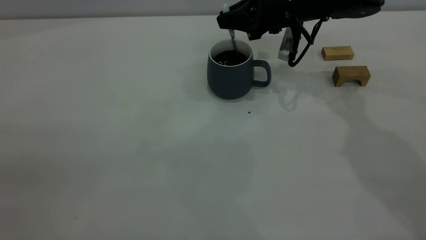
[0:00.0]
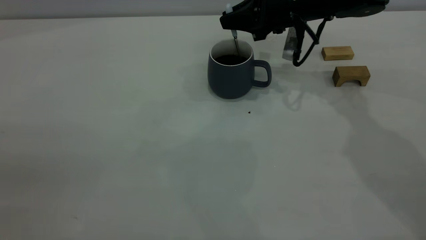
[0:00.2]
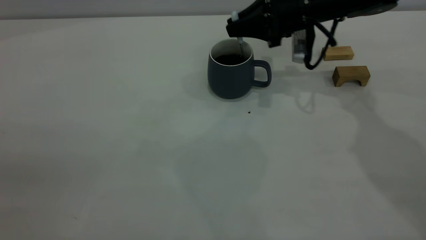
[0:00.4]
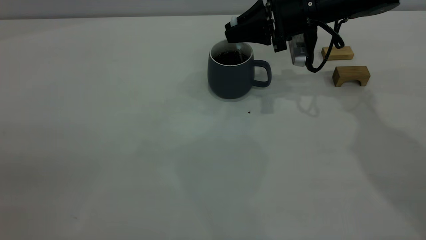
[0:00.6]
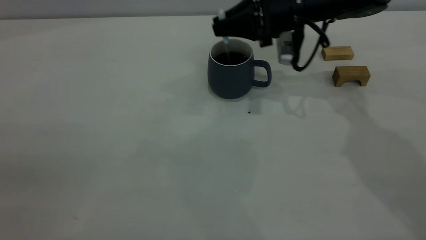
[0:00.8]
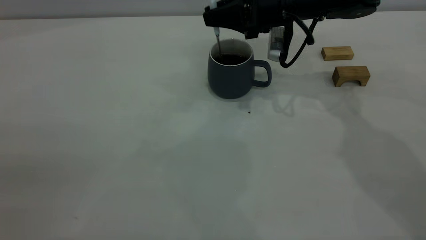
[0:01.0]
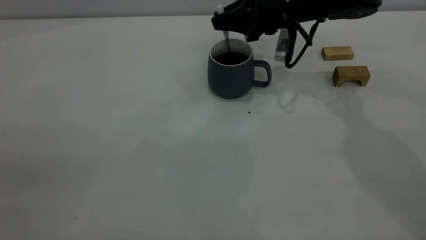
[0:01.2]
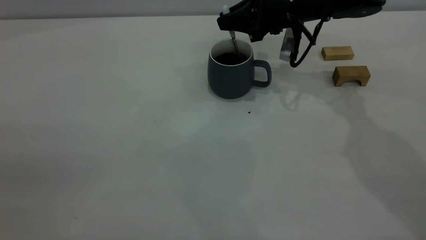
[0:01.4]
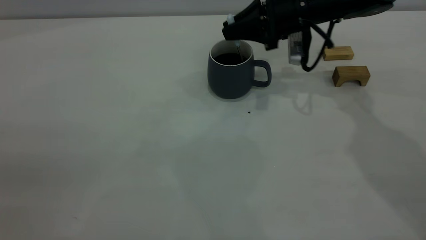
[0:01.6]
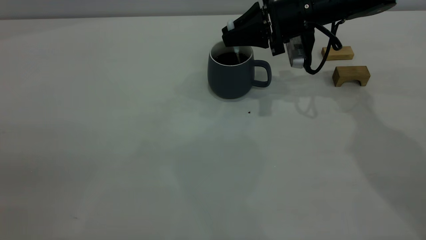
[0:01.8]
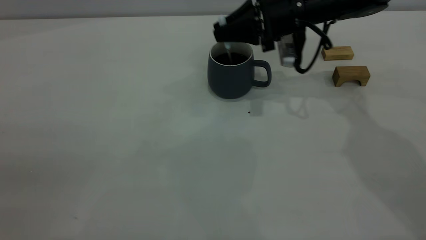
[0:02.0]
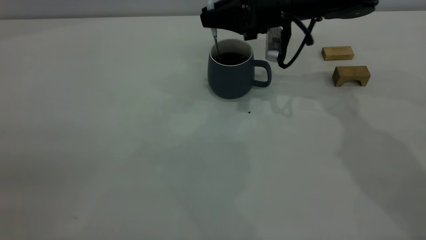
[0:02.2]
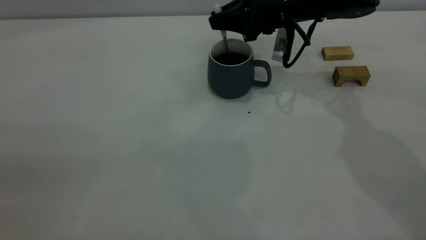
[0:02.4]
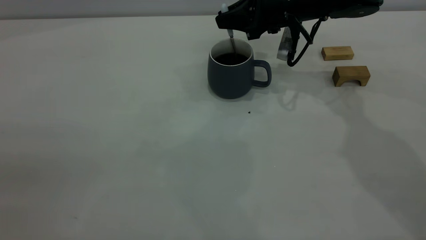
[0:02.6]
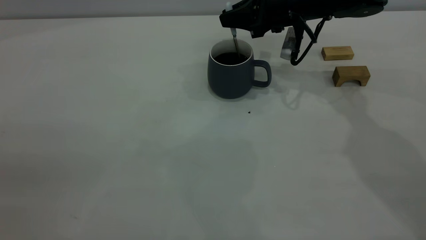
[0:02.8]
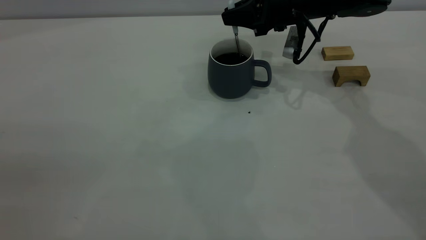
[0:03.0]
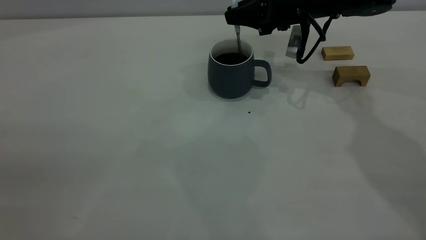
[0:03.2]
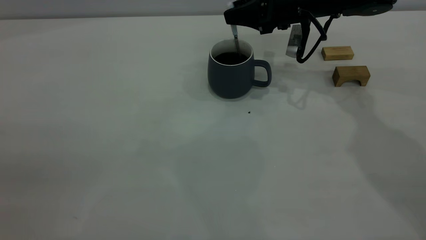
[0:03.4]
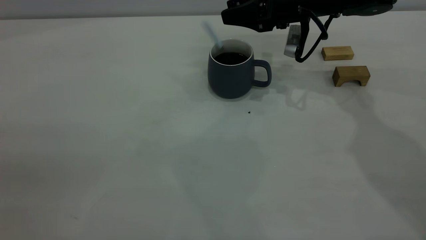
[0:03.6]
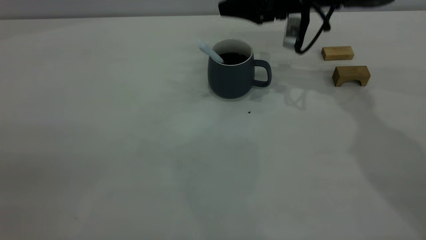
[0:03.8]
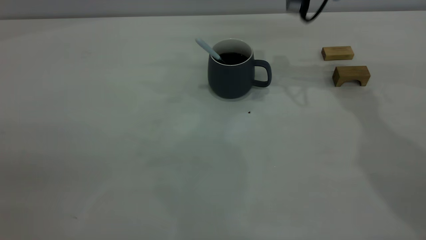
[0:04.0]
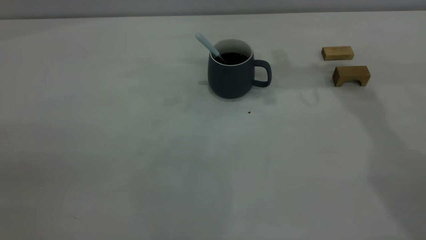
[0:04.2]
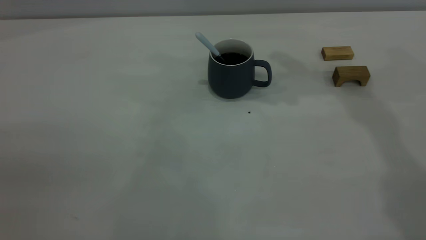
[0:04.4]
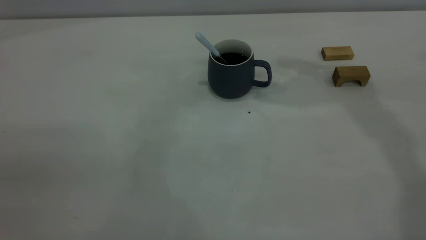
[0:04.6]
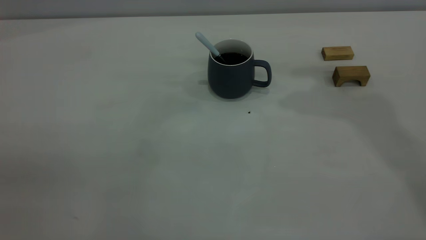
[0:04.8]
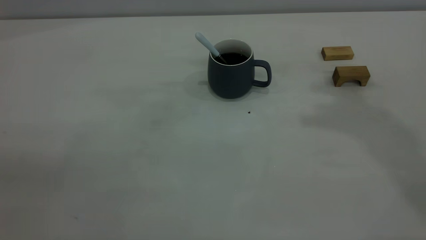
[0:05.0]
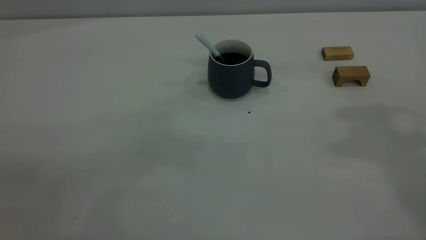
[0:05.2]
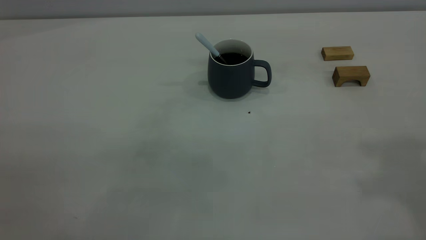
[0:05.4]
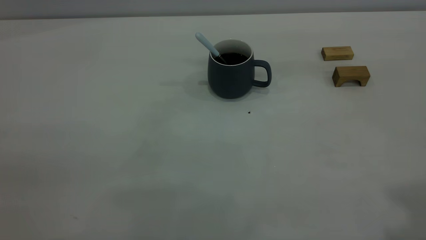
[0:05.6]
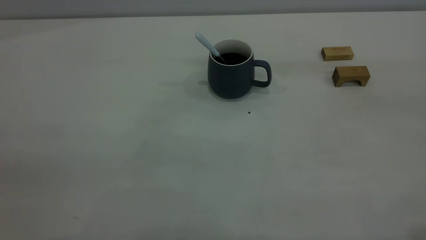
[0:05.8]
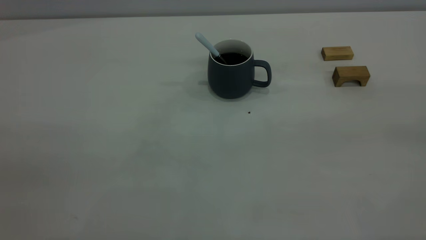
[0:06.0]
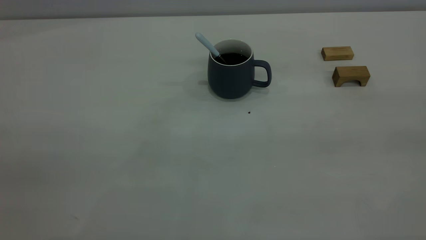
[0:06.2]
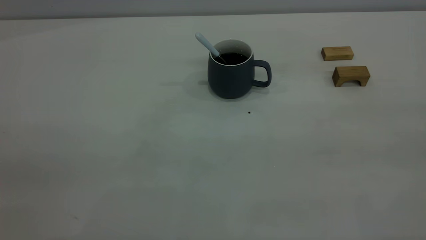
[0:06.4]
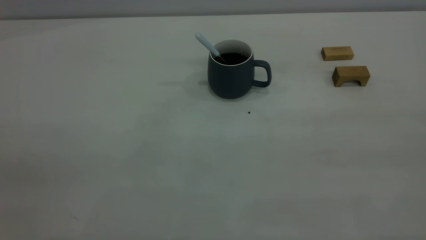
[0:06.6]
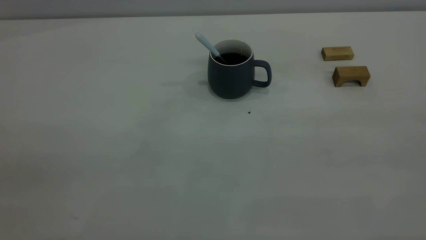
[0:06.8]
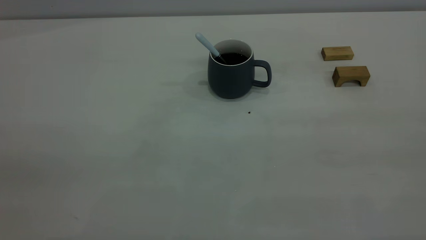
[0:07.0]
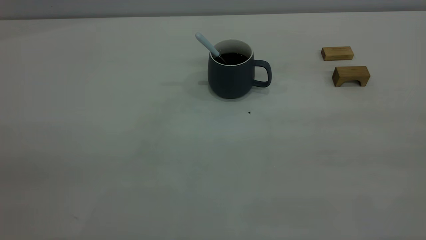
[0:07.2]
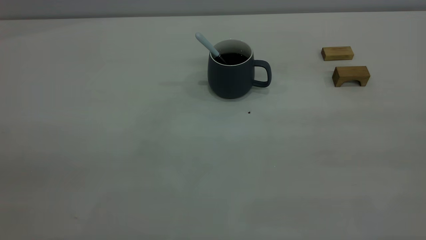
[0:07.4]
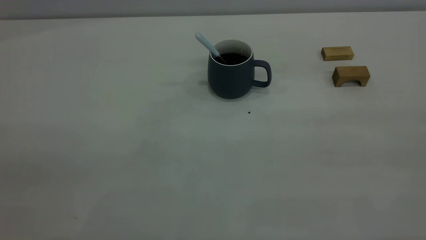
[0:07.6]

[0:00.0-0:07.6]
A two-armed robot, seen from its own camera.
Step, 0:00.0 to 0:03.6: Stir the coffee in the cup.
0:00.0 to 0:03.0: The grippers stay close to where they were, moving slightly.
0:03.0 to 0:04.6: The right gripper moves upward, about 25 cm, and opens.

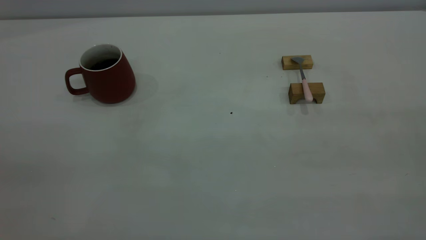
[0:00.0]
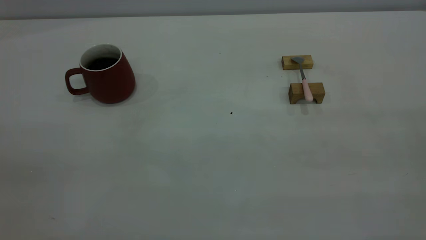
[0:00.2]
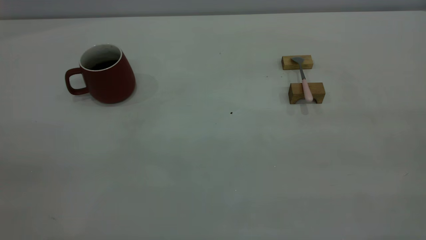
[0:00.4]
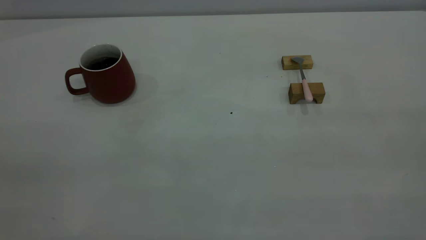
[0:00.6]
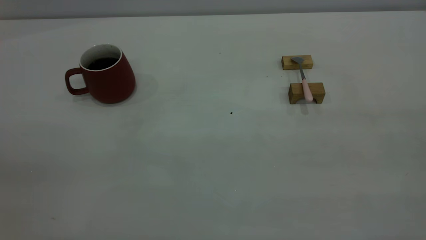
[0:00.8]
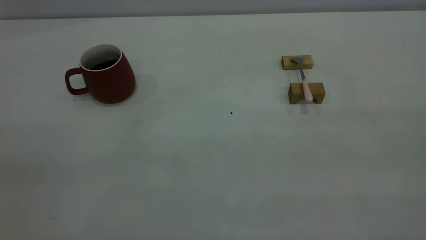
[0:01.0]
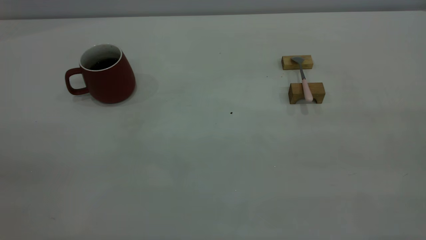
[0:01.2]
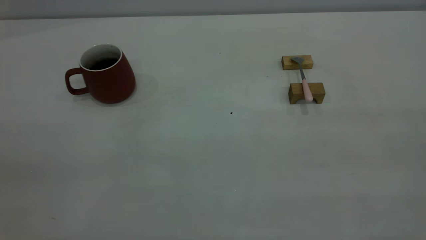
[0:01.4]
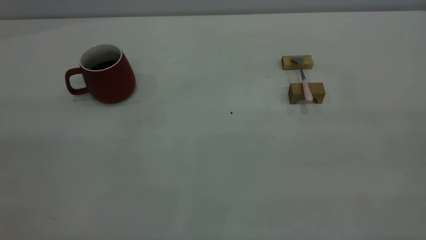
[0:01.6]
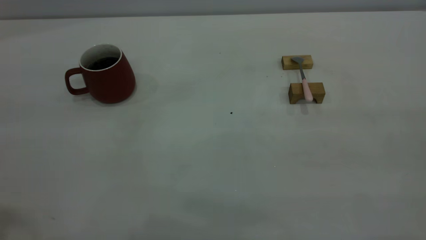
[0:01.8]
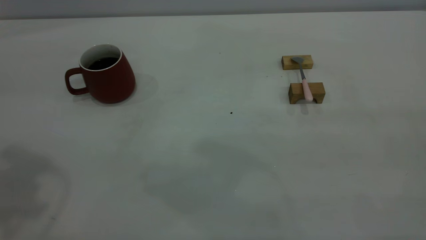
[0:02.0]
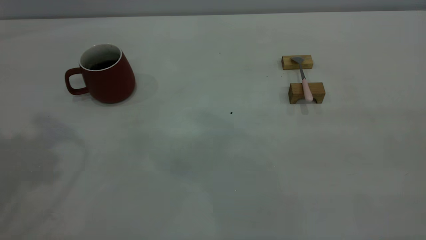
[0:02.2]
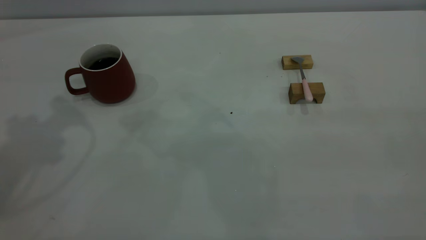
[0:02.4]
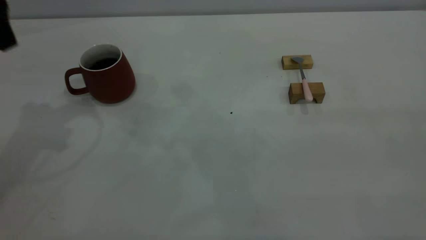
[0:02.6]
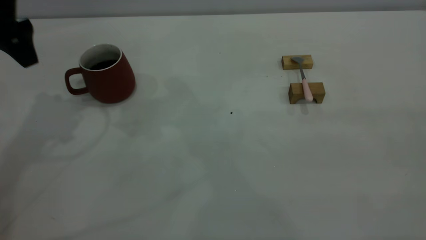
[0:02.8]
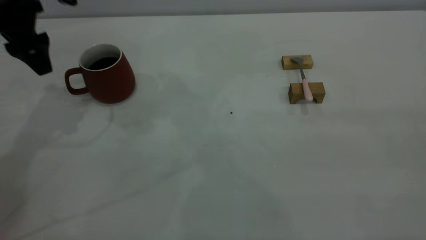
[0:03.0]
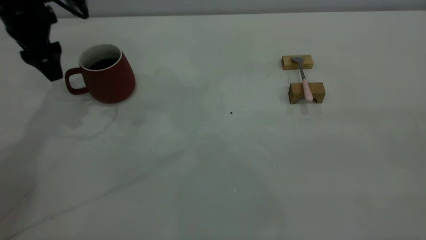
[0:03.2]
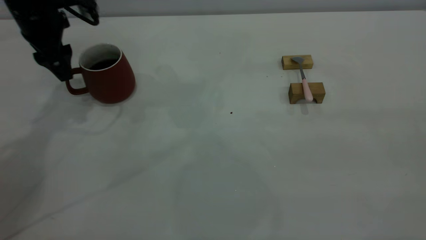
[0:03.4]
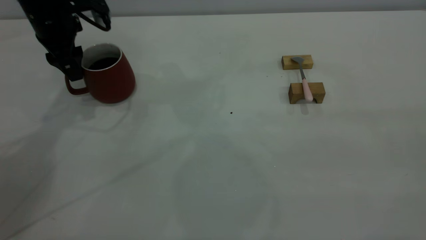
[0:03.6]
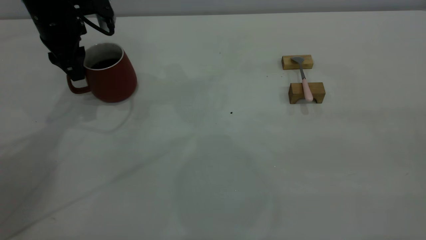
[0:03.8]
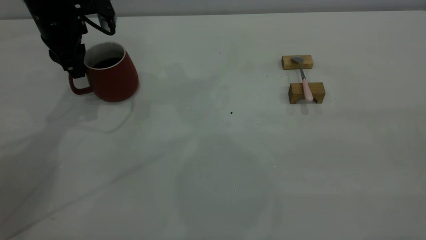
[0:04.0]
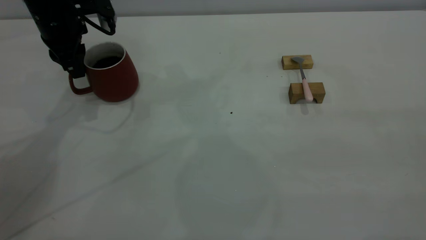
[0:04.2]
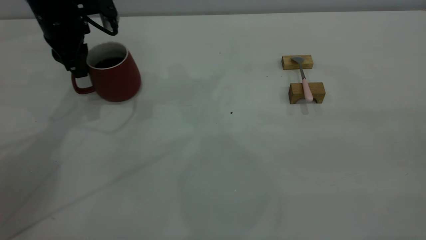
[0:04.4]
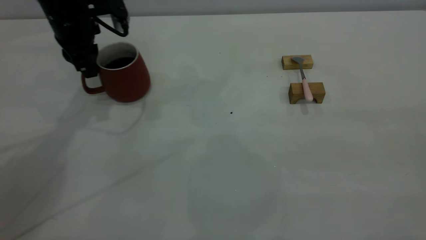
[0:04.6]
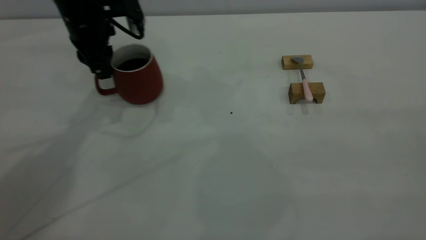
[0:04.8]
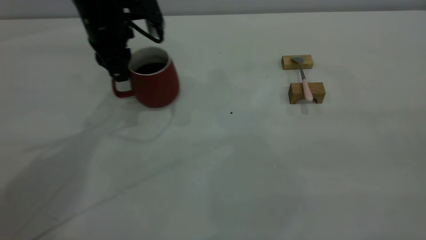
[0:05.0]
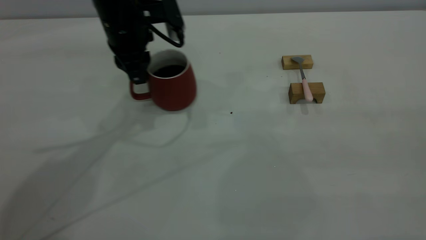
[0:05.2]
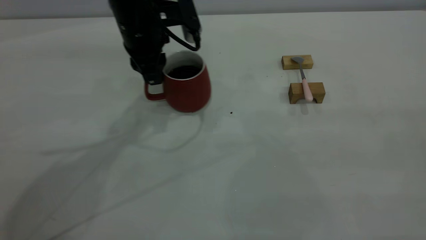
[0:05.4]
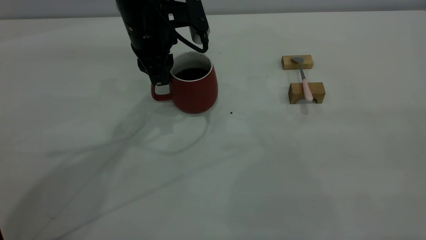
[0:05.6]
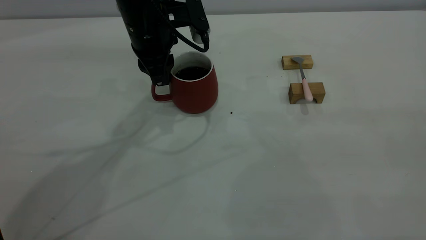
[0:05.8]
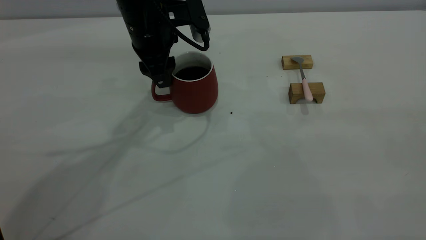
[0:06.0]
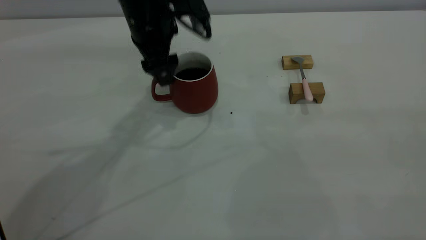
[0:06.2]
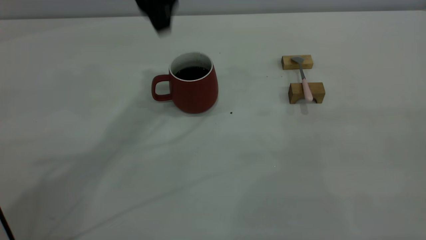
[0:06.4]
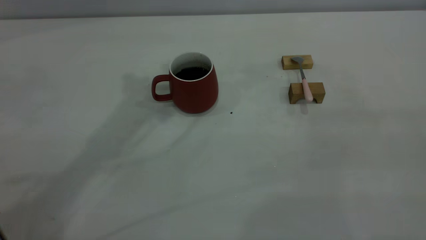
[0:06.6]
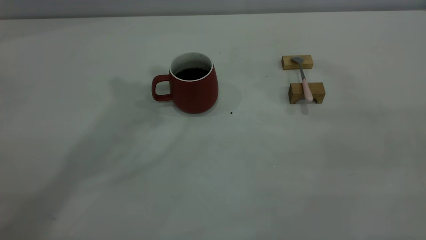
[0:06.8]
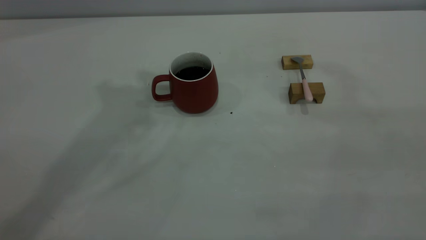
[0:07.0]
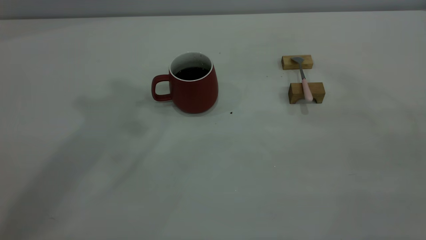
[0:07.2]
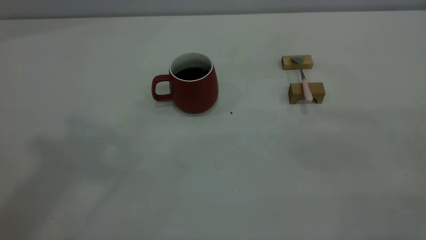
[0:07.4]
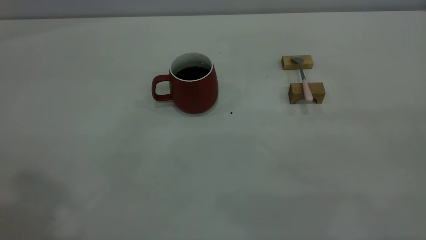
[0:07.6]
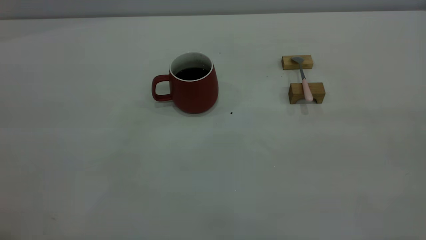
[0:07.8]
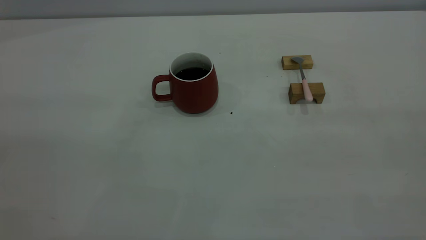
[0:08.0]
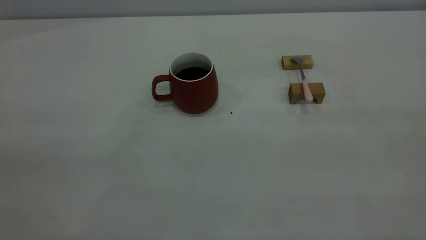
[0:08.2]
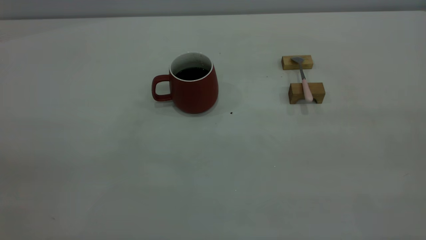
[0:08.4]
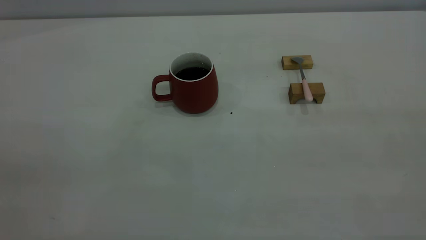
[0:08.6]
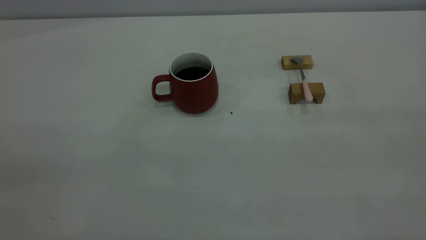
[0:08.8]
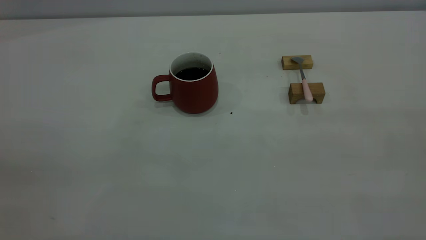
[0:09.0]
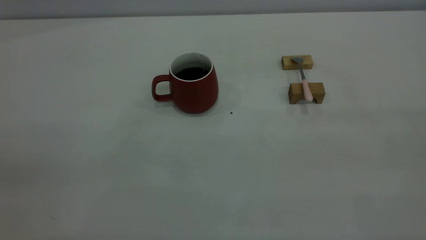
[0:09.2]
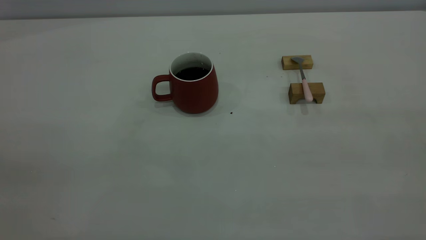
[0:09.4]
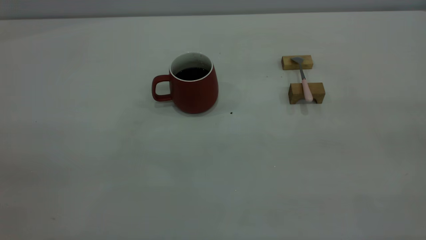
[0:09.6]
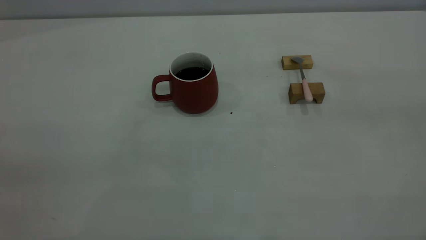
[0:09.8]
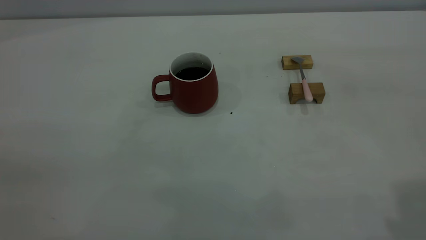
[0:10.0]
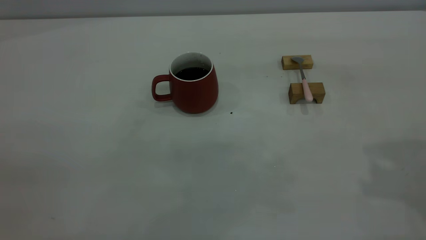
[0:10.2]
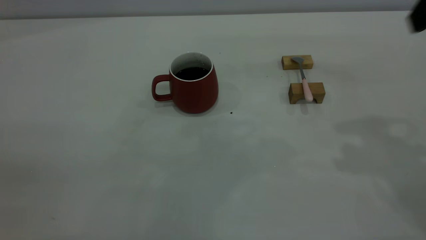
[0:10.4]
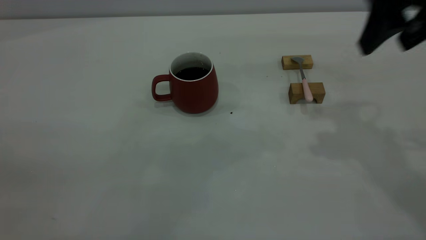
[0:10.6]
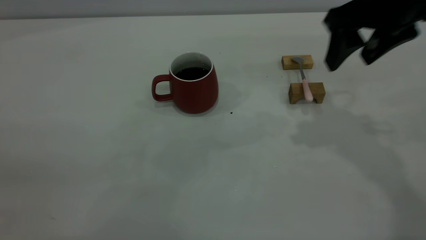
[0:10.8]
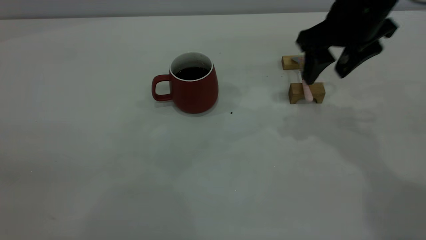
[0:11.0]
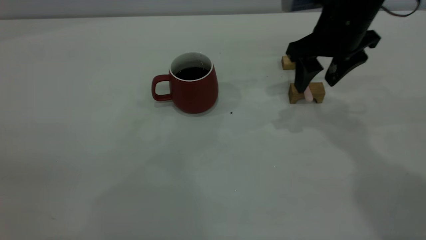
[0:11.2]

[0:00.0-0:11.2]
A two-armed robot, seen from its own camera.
Step, 0:00.0 to 0:06.2: Move the cup with coffee to the center of view.
0:01.6 to 0:03.2: The left gripper is displaced forward and downward by approximately 40 cm, and opens up.
0:03.2 to 0:04.8: The left gripper moves to the right, roughly 10 cm, and closes up.
0:04.8 to 0:06.4: The left gripper travels upward and to the right by about 15 cm, and opens up.
0:06.4 to 0:08.0: The left gripper heads backward and to the left, covering some 40 cm, and closes up.
0:09.6 to 0:11.2: The right gripper moves forward and downward, about 40 cm.
